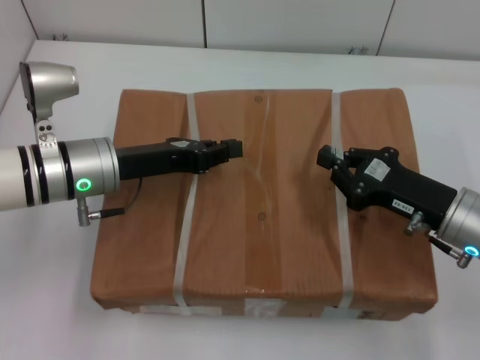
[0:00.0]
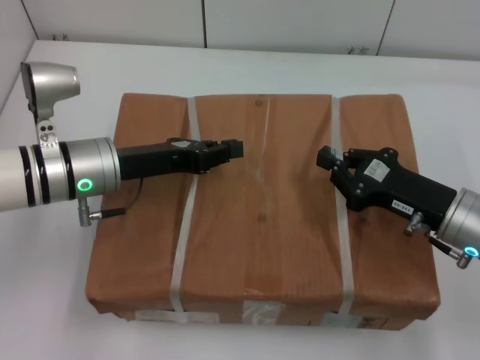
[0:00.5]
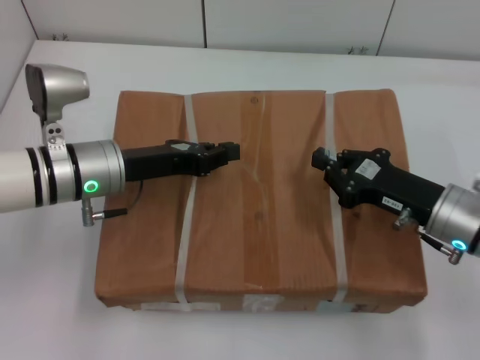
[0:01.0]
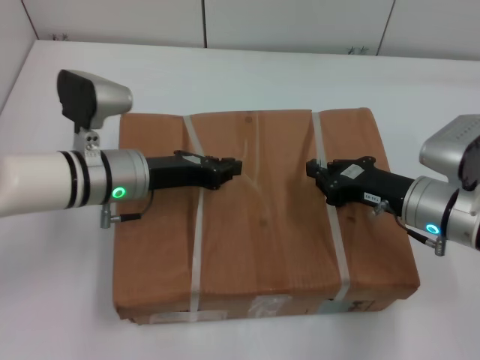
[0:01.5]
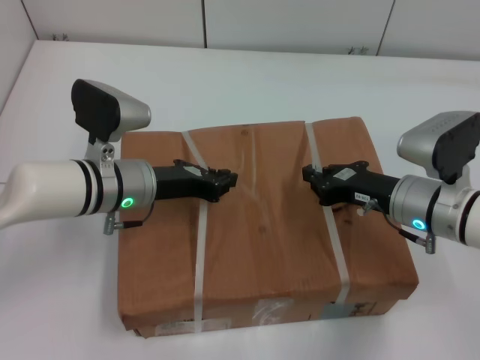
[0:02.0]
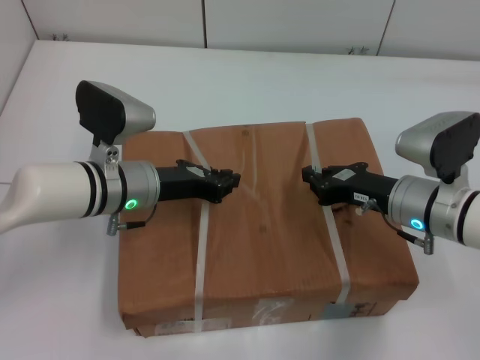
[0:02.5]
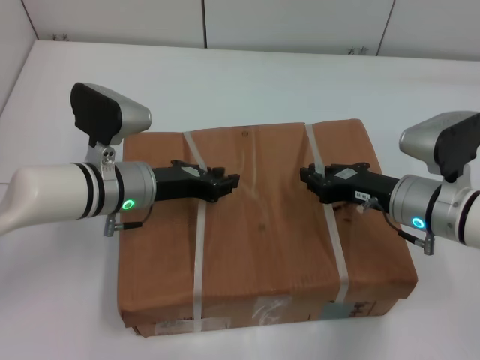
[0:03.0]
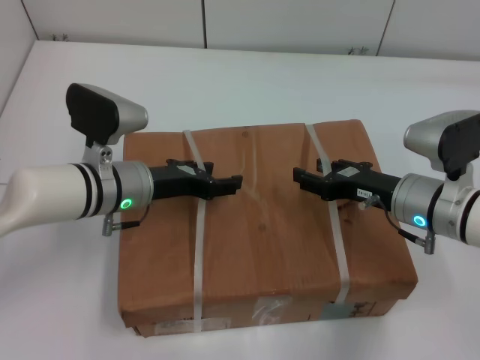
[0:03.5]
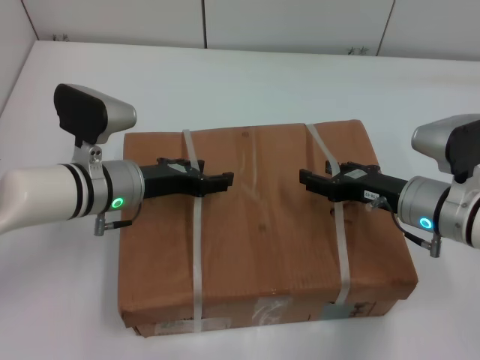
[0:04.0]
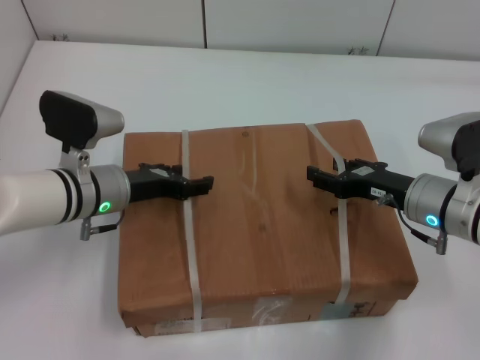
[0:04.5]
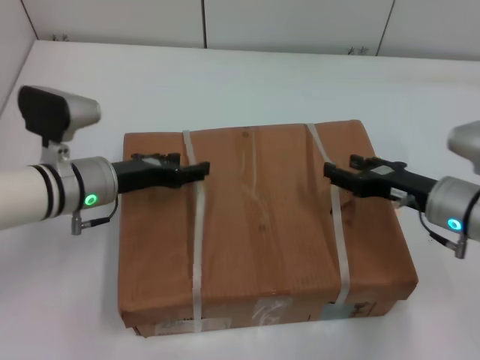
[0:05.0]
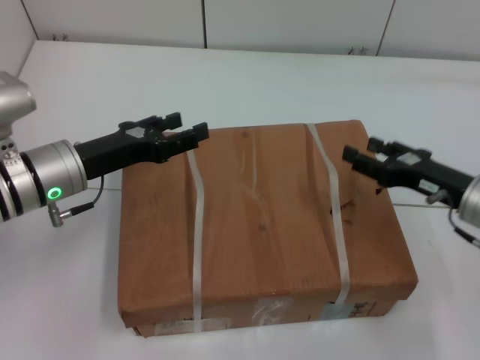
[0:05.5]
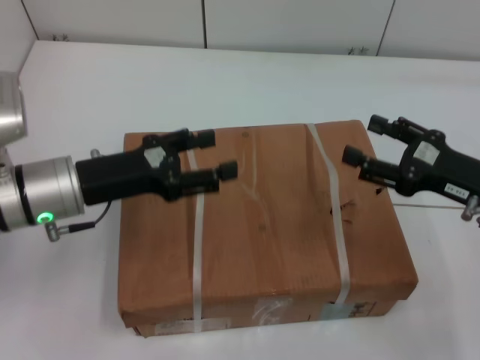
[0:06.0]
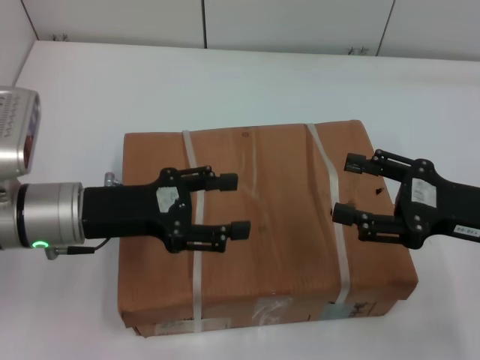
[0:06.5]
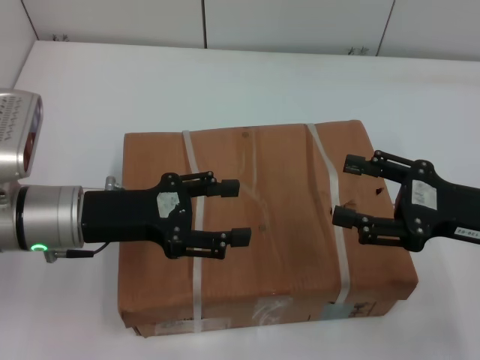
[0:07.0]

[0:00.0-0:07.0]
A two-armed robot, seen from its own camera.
Task of the whole recording: place the box on the table with both arms.
Step, 0:00.0 to 0:02.0: Place the box on the table with left gripper.
Step, 0:00.0 to 0:02.0: Place the box on the table with right gripper.
Step, 0:02.5 to 0:04.5: Loosen the box on the table with left gripper.
Step, 0:02.5 to 0:04.5: Loosen the box on the table with right gripper.
0:00.0 to 0:02.0: The right gripper changes place by approximately 5 cm; the left gripper moves some 5 cm.
0:02.0 to 0:03.5: The left gripper opens up. The right gripper opens its fingers.
0:03.5 to 0:05.0: The grippers move only a little.
0:05.0 to 0:07.0: The left gripper heads backward, covering roughly 5 cm. Meanwhile the right gripper travels upward and backward by approximately 10 cm.
